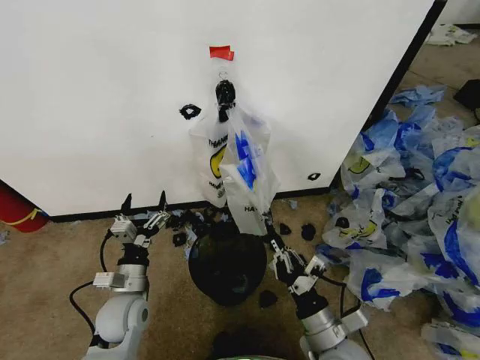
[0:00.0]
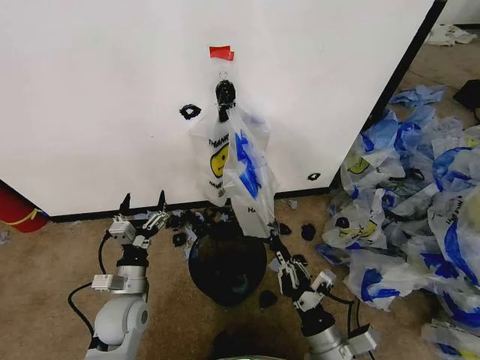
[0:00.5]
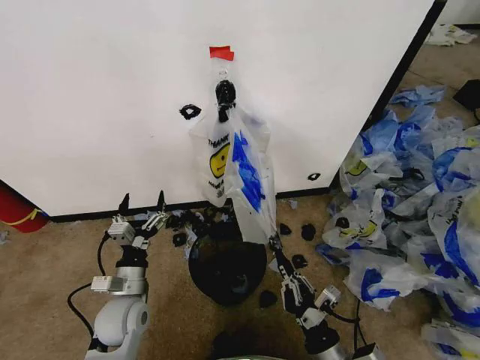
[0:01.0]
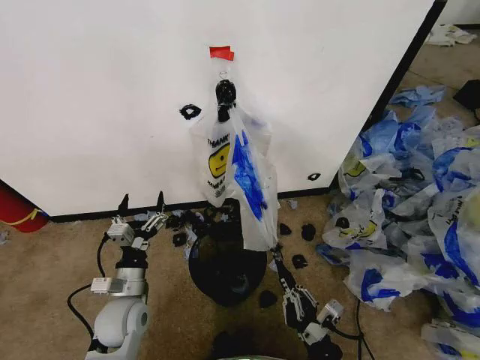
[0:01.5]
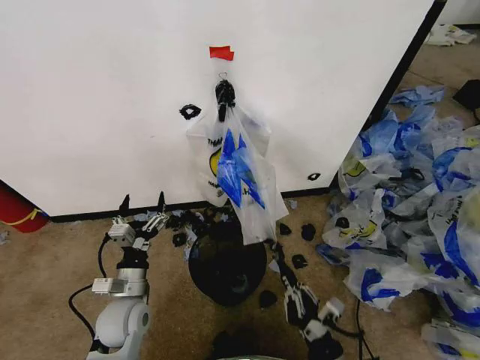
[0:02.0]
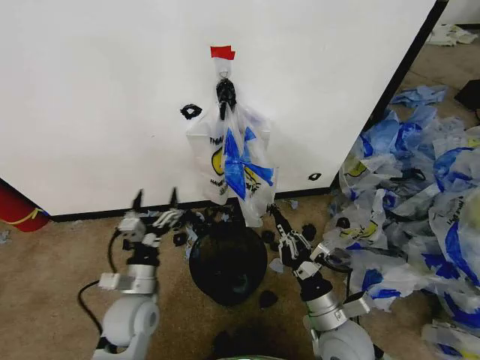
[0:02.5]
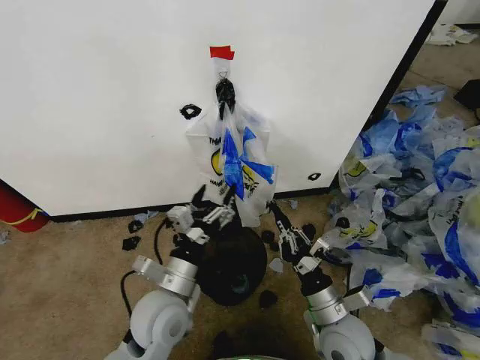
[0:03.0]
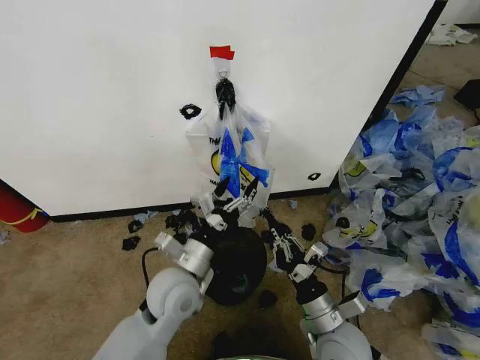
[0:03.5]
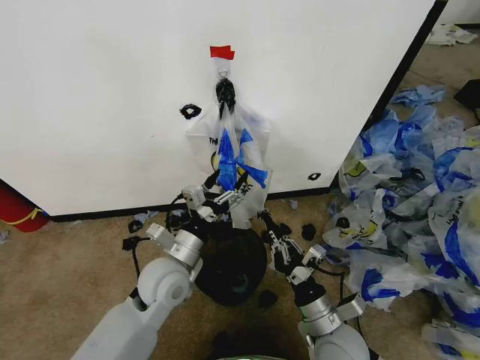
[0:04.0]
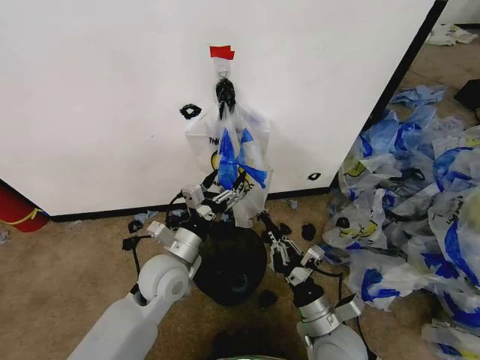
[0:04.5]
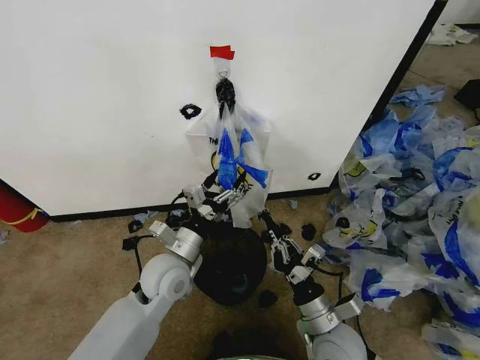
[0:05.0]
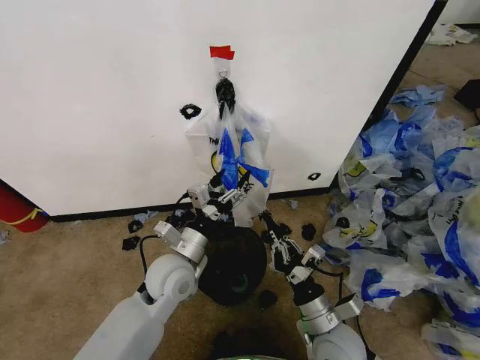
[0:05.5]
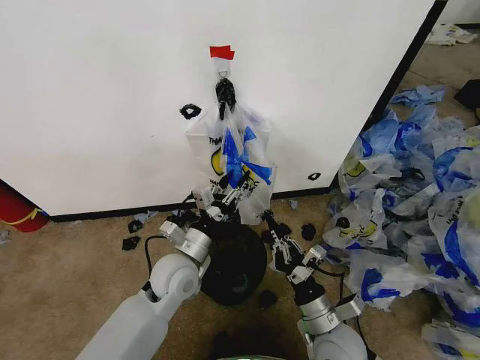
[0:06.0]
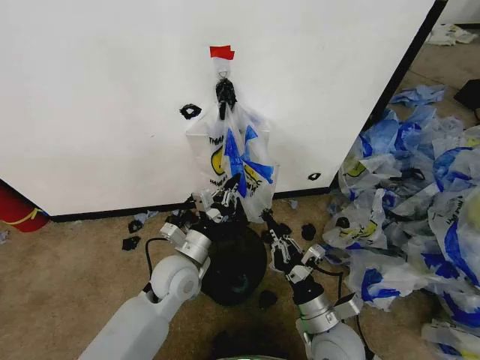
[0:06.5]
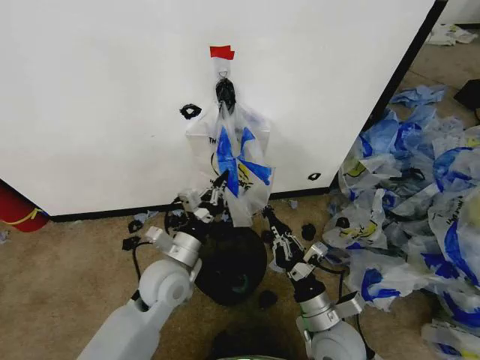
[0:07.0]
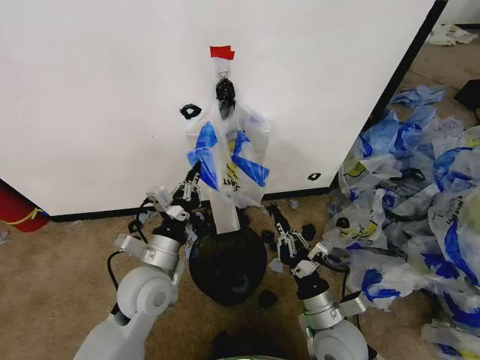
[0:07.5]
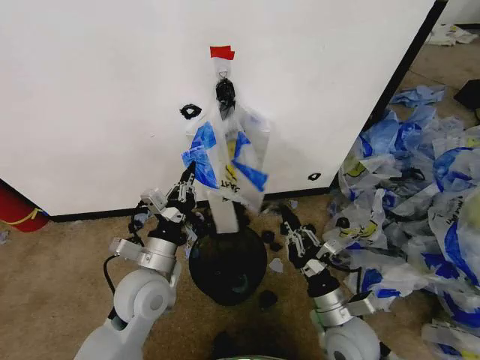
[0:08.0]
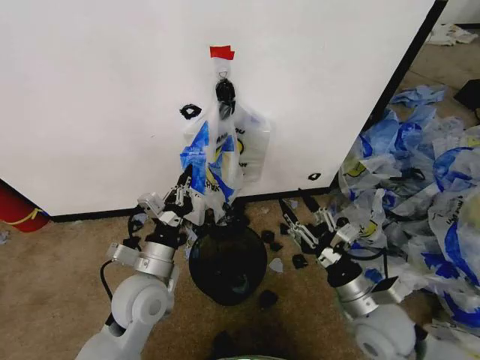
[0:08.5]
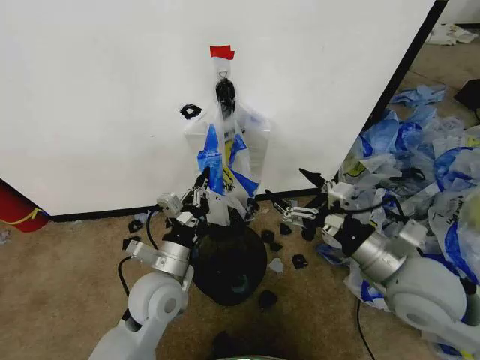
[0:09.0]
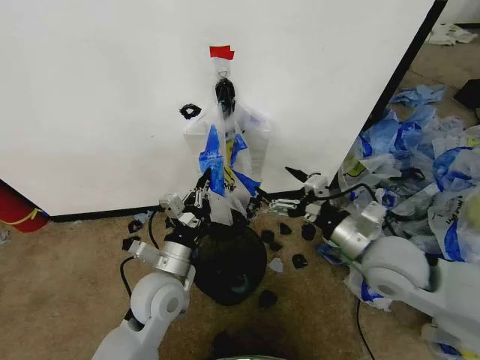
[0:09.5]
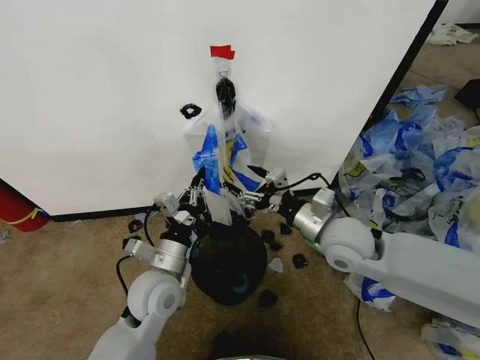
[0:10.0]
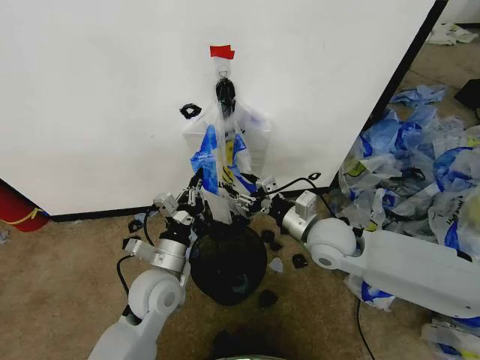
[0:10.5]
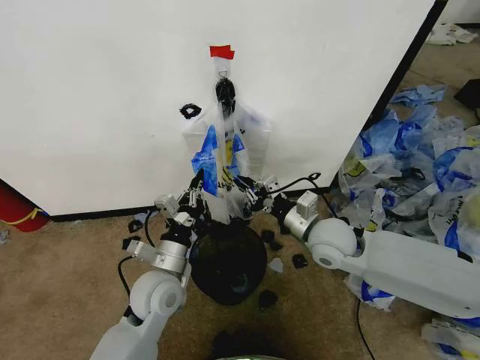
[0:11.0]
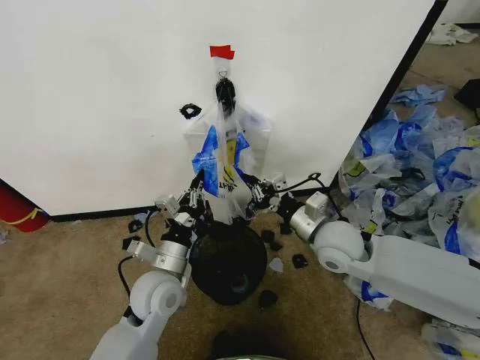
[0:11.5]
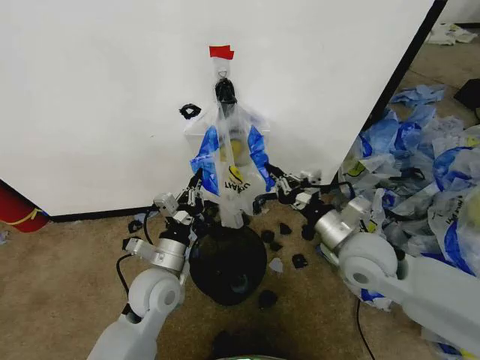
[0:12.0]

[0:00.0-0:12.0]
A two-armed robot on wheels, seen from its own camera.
Task of the whole recording: Pick up the garbage bag from the wall and place it over the trash bin.
0:00.0 to 0:02.0: The right gripper goes about 5 cm backward.
0:02.0 to 0:04.0: The left gripper heads to the right and upward, covering roughly 15 cm, while the right gripper travels forward by roughly 10 cm.
0:04.0 to 0:06.0: The left gripper closes its fingers.
0:06.0 to 0:08.0: The left gripper shifts by approximately 5 cm, and closes its fingers.
0:08.0 to 0:10.0: The right gripper goes about 20 cm upward and forward, and opens up.
0:10.0 to 0:12.0: The right gripper closes its fingers.

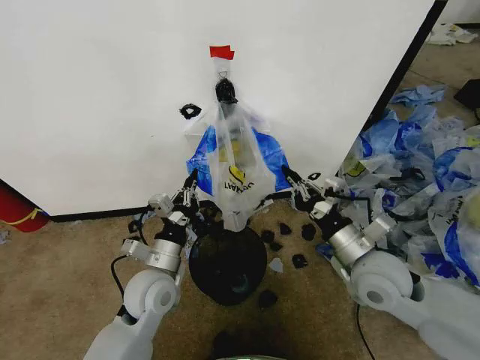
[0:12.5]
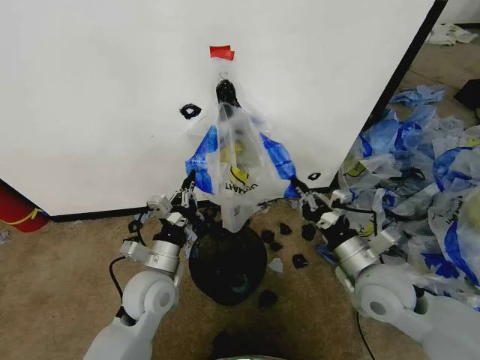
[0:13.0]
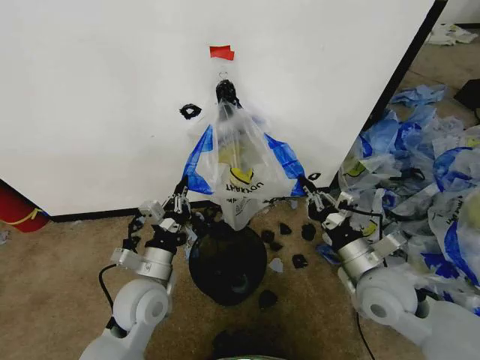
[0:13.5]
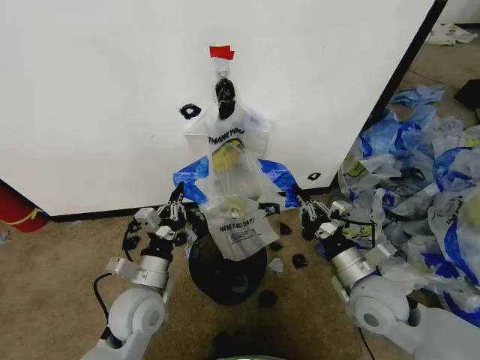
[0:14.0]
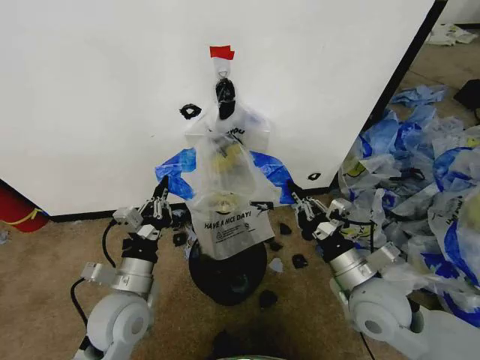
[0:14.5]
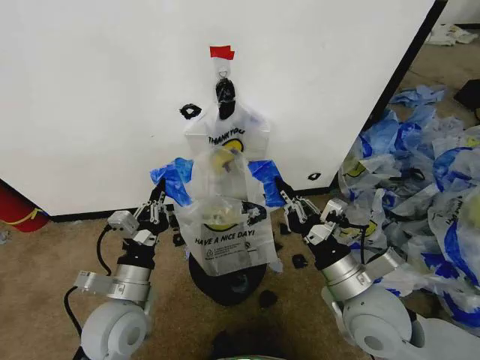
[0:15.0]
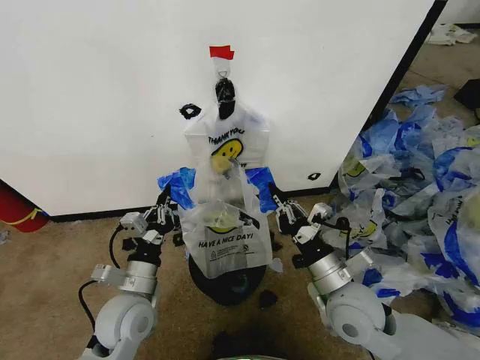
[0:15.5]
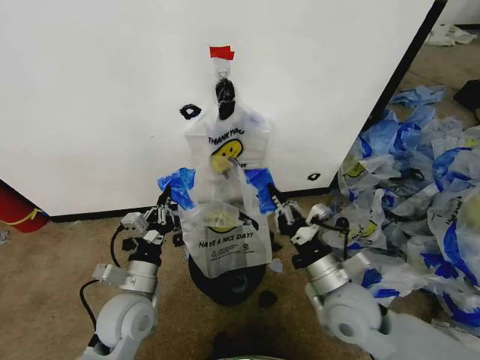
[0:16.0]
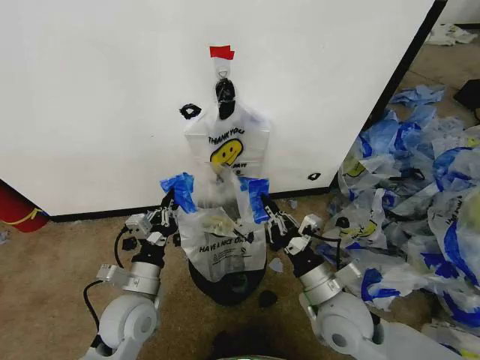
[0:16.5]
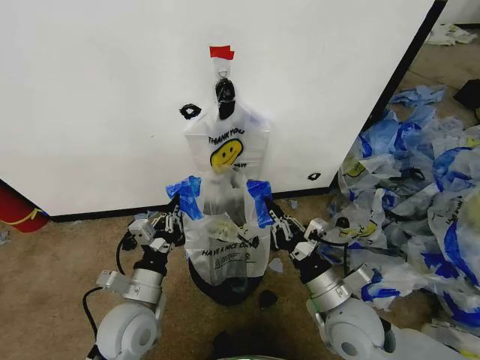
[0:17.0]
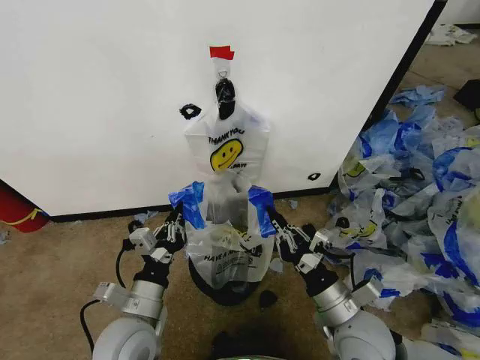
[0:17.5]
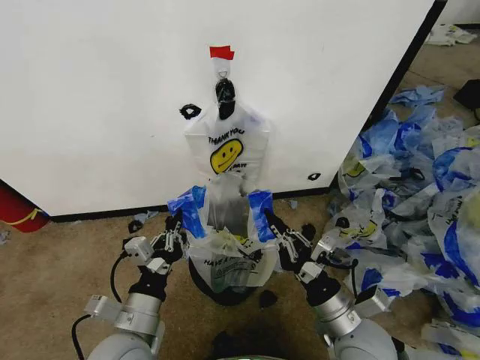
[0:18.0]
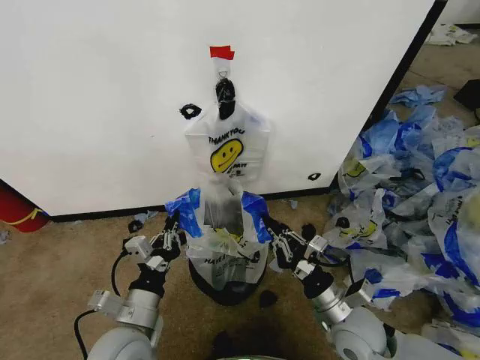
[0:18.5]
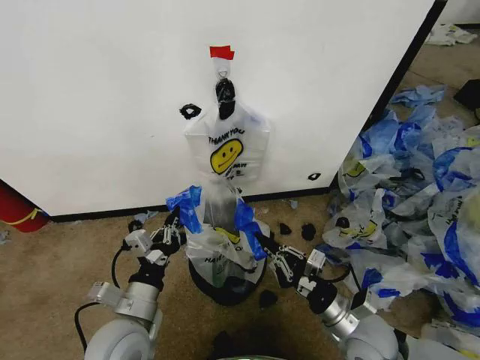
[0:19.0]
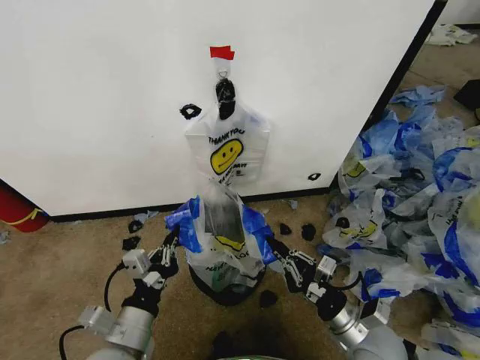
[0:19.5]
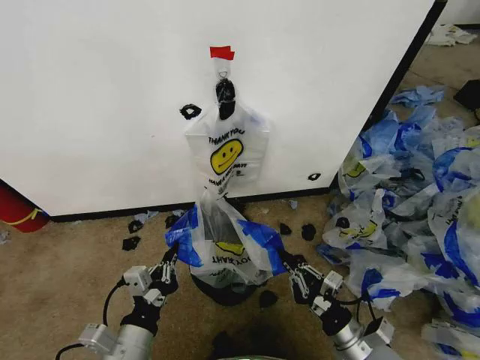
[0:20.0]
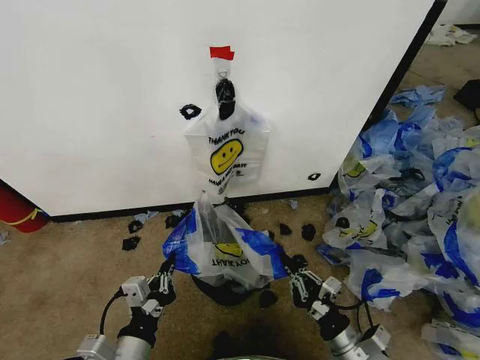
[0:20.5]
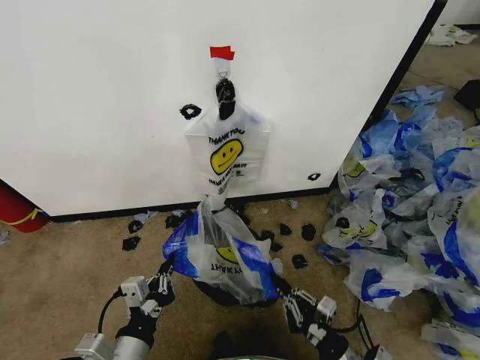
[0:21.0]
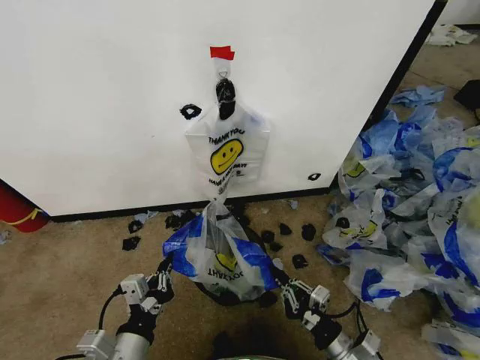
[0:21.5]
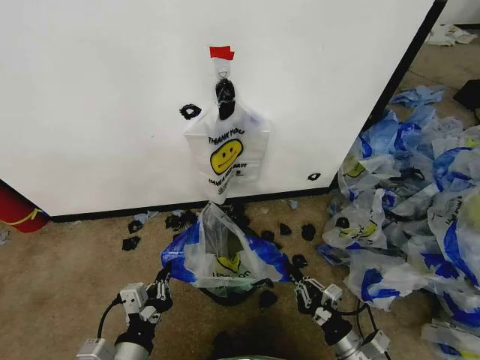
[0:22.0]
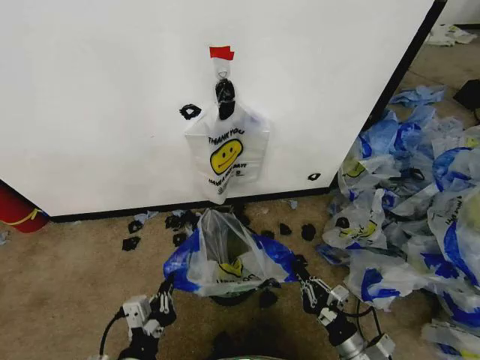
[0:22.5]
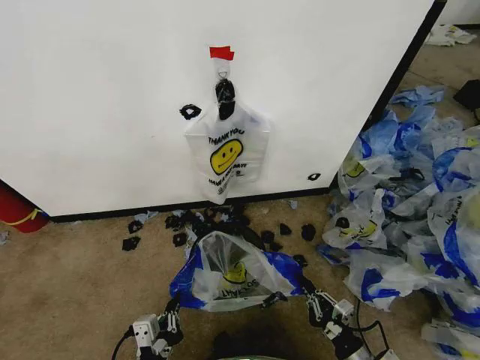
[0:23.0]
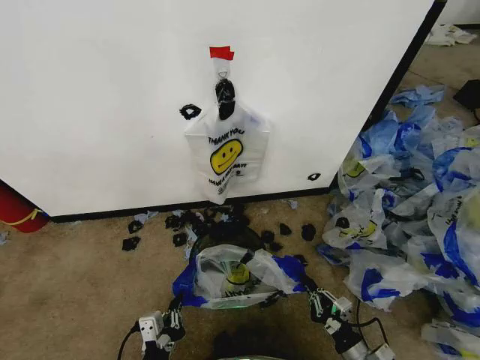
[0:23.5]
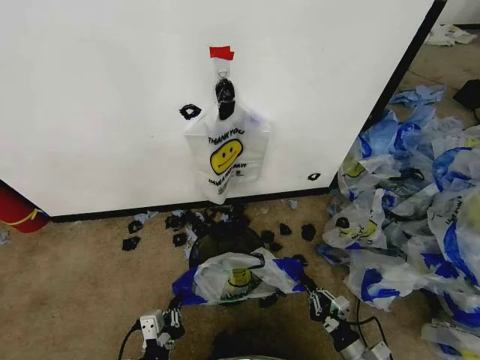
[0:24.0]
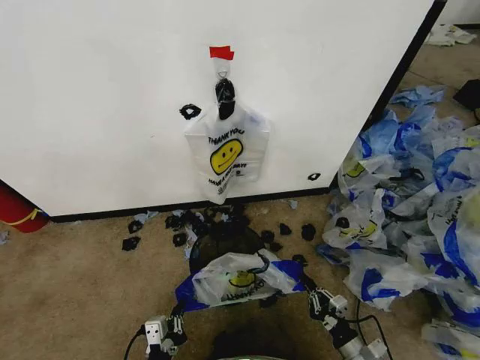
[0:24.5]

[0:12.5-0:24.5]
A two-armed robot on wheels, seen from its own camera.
Task of the whole recording: Pick up the garbage bag from the wall and place it over the trash bin.
0:12.5 to 0:14.5: The left gripper heads backward, covering some 5 cm.
0:14.5 to 0:16.5: The right gripper shifts approximately 5 cm to the left.
0:16.5 to 0:18.5: The left gripper is displaced backward by some 5 cm, while the right gripper changes place by some 5 cm.
0:18.5 to 0:20.5: The right gripper goes about 10 cm backward and downward. Meanwhile the left gripper moves backward, roughly 5 cm.
0:20.5 to 0:22.5: The grippers move only a little.
0:22.5 to 0:24.5: The grippers both shift downward by about 10 cm.

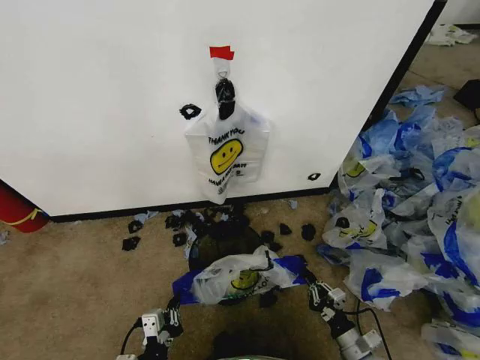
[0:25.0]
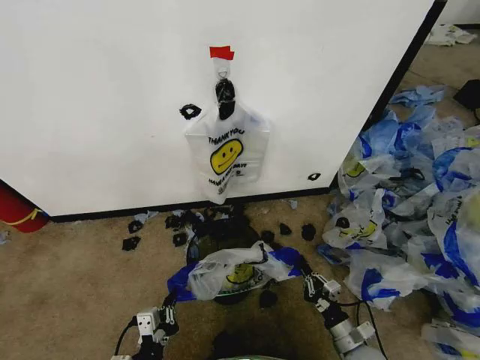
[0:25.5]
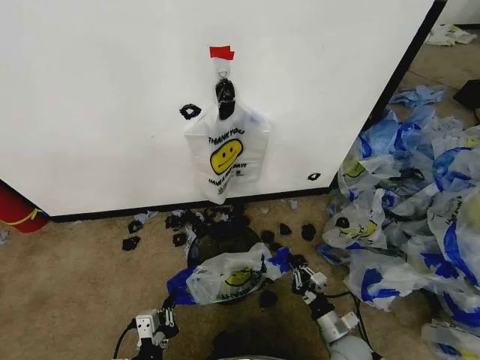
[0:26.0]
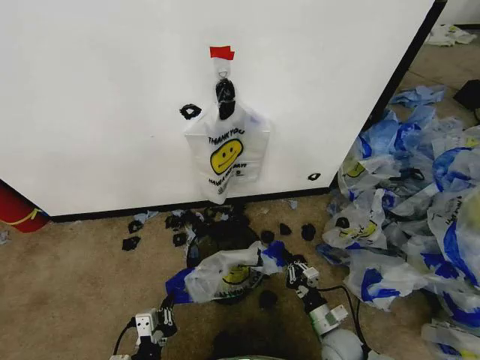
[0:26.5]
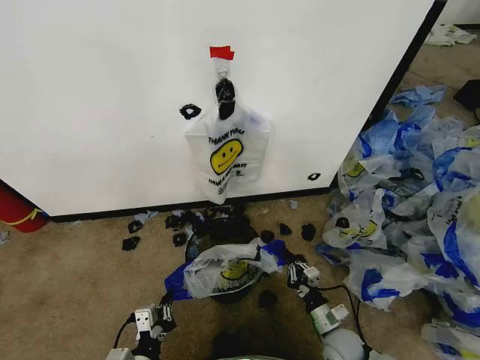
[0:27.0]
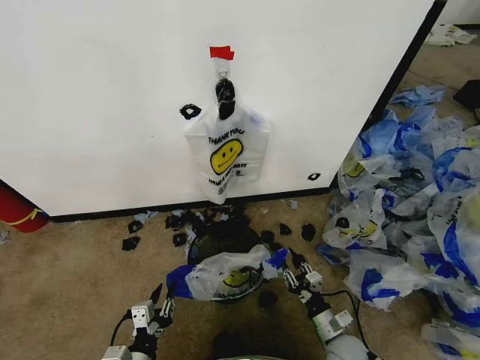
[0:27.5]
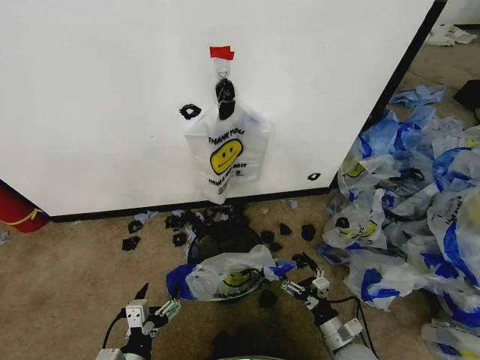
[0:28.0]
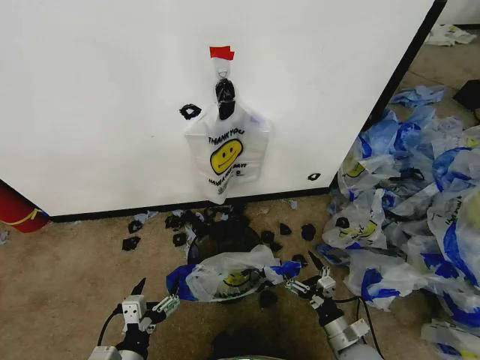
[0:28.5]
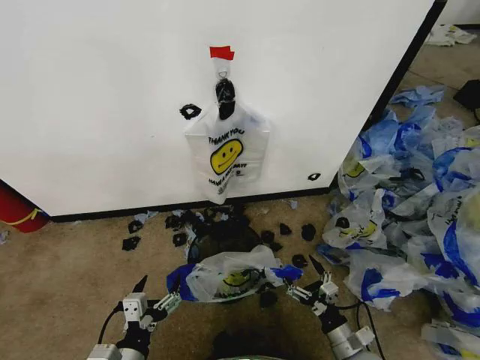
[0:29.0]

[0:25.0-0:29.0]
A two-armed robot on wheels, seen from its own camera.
Task of the whole recording: Pick up the garbage bag from the wall and place it over the trash bin.
0:25.0 to 0:27.0: The right gripper heads to the left and forward, covering approximately 10 cm.
0:27.0 to 0:29.0: The right gripper is displaced backward by roughly 5 cm, and opens its fingers. Meanwhile the left gripper opens.
